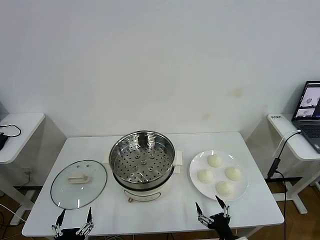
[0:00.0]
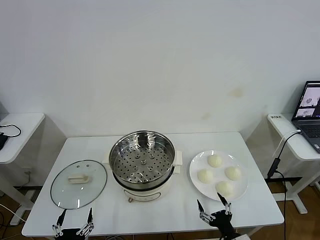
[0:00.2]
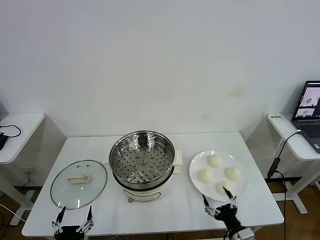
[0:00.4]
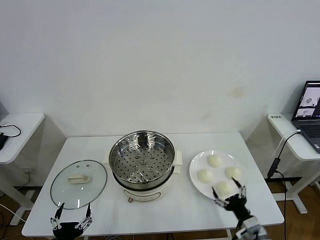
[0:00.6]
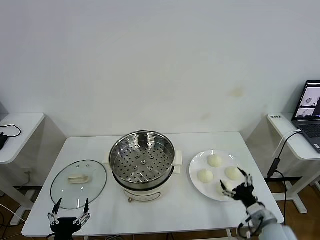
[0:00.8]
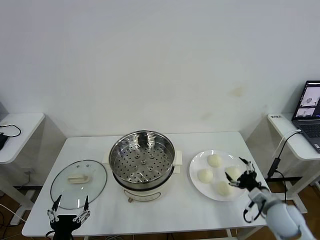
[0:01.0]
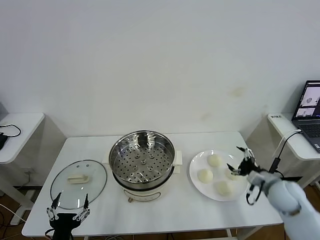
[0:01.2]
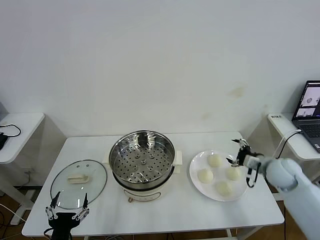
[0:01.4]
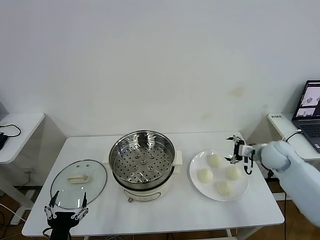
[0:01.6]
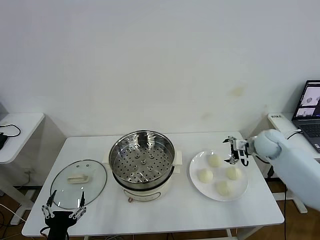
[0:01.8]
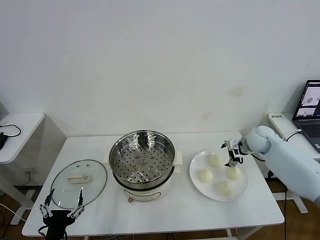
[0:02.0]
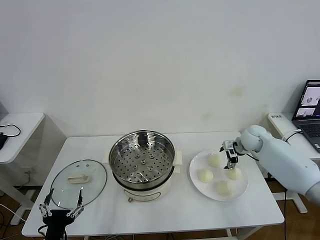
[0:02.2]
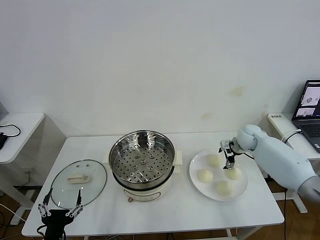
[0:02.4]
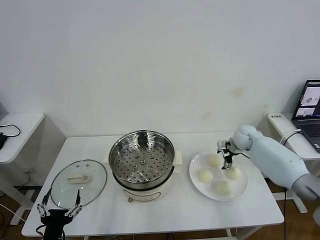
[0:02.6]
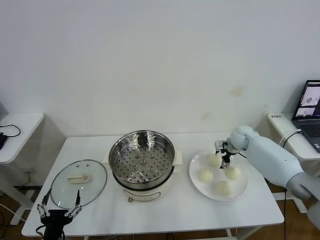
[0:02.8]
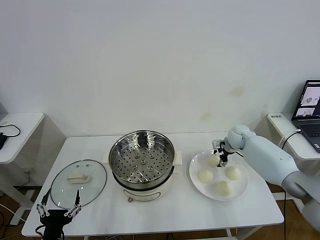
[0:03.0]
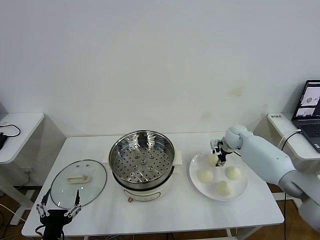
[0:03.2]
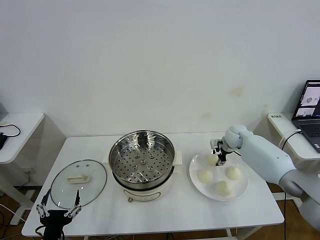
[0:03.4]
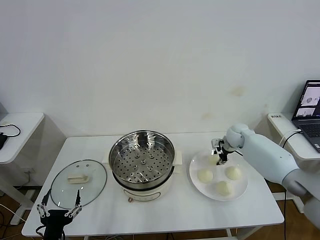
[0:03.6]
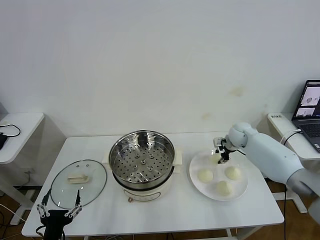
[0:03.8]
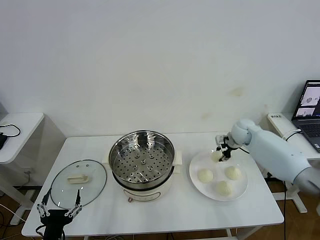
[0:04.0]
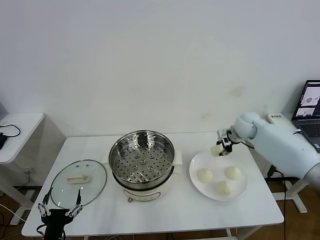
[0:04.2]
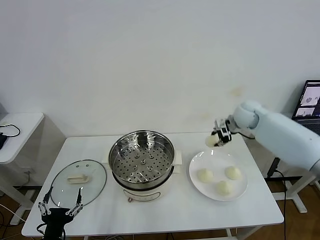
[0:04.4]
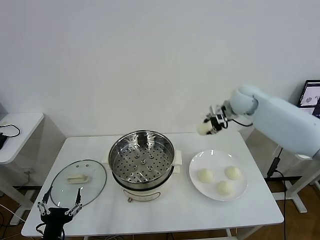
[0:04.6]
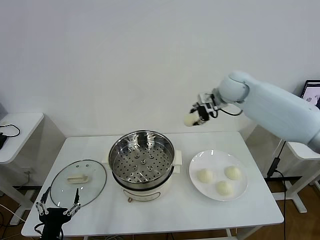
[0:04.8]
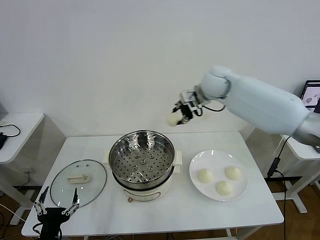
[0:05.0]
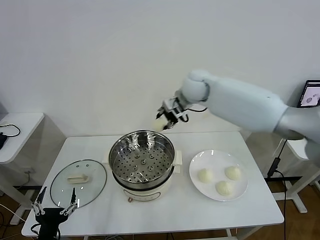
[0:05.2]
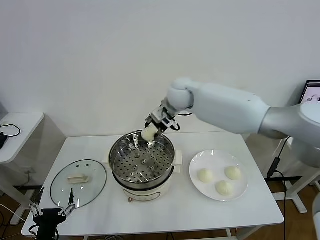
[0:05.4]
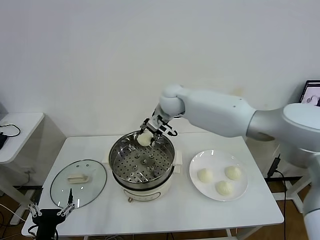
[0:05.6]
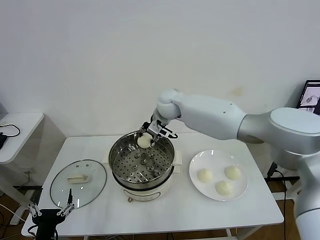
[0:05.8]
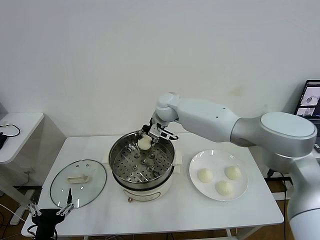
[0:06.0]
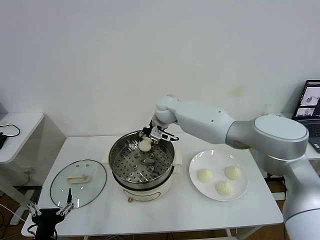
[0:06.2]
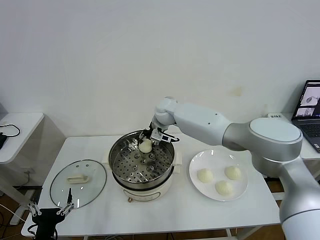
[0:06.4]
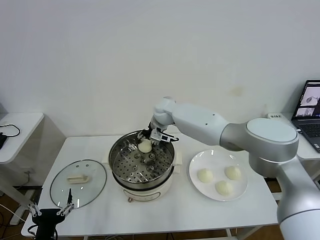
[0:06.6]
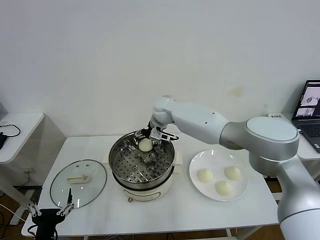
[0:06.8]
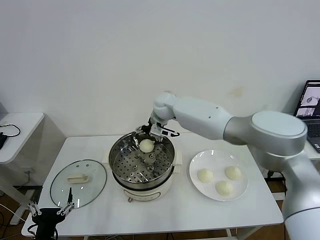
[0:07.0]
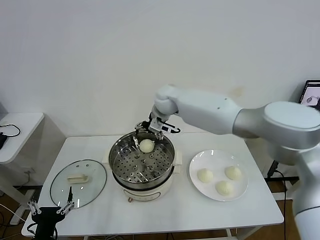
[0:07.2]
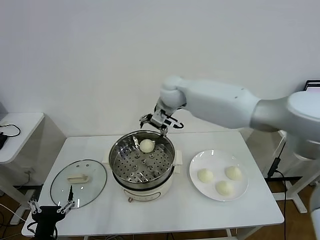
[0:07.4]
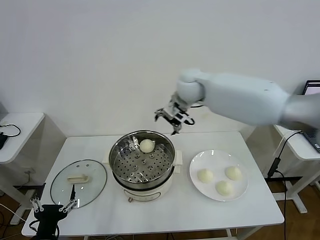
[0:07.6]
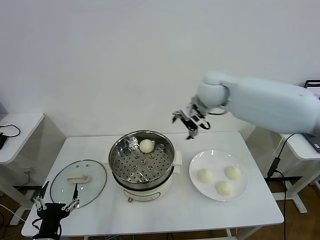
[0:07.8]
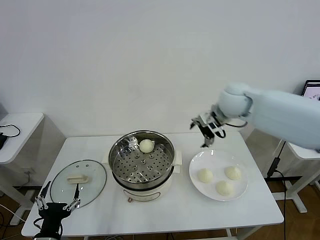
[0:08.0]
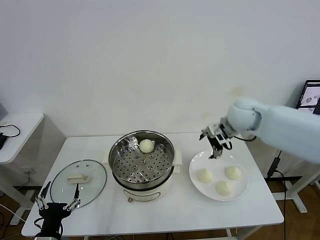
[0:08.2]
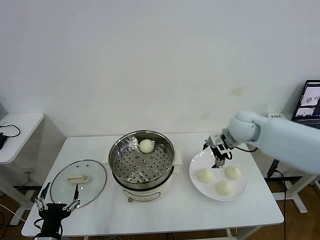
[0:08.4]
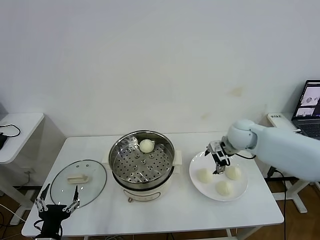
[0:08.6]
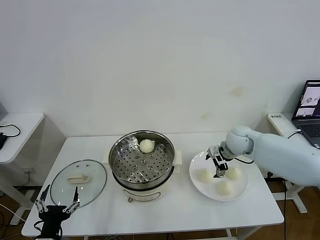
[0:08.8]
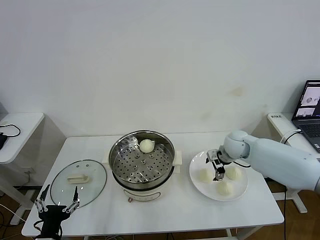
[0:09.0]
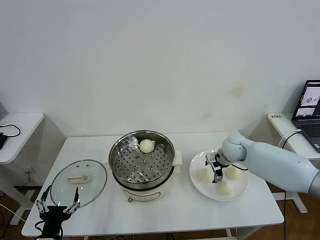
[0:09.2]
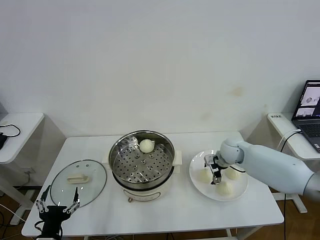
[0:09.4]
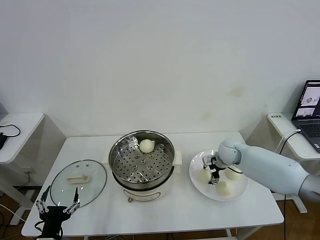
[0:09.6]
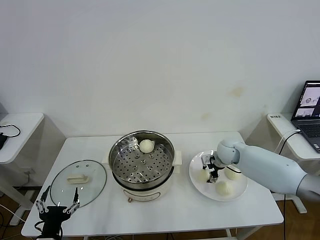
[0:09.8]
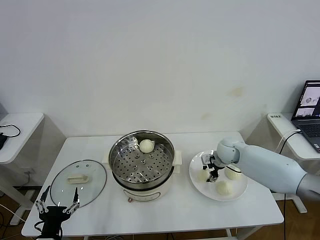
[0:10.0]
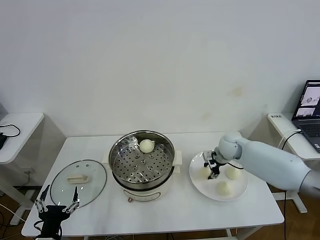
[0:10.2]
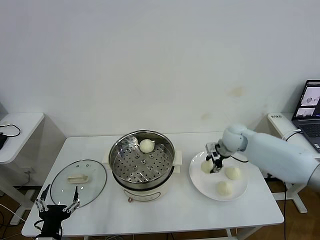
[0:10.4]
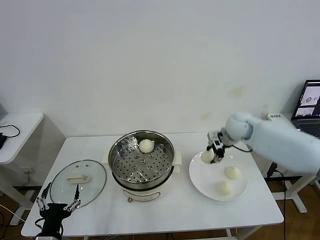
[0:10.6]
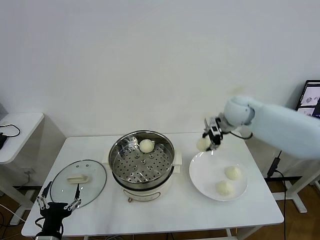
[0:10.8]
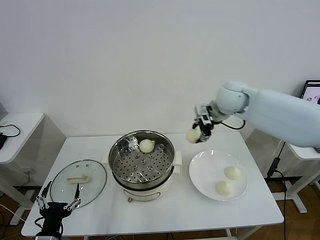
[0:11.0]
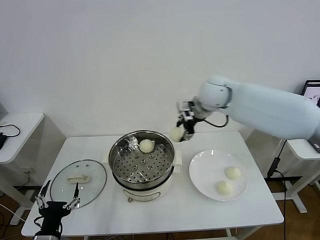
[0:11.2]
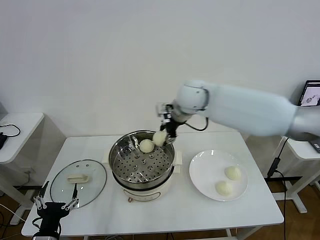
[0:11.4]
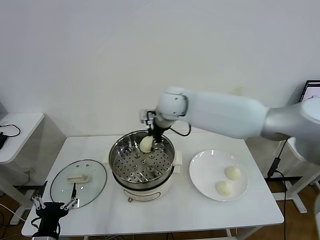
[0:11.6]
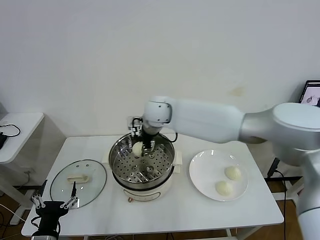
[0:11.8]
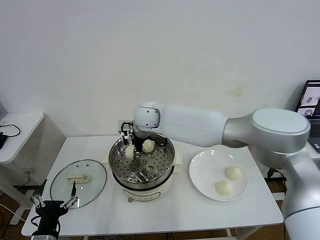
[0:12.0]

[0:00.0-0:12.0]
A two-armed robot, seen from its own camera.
Task of the whole recording: take steamed baozi put them in steamer then cover it.
Step, 0:00.0 to 0:03.6: Grasp the baozi in the plate with right gripper.
Step, 0:03.8 to 0:07.0: Place the baozi on the steamer with right gripper.
Step, 0:07.2 to 0:10.0: Grasp the baozi in the plate with right gripper.
0:01.6 to 0:03.0: The right gripper is displaced forward, to the left and downward by some 15 cm, and closes.
0:03.0 to 0:04.4: The right gripper shifts some 20 cm upward, and closes its fingers.
0:04.4 to 0:06.0: The right gripper goes about 25 cm to the left.
0:06.0 to 0:07.6: The right gripper travels to the right and upward by some 15 cm, and opens.
0:07.6 to 0:09.0: The right gripper heads downward and to the right, covering roughly 25 cm.
0:09.0 to 0:10.4: The right gripper moves upward, approximately 5 cm, and closes its fingers.
0:10.4 to 0:12.0: The right gripper shifts some 35 cm to the left.

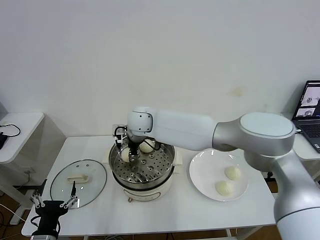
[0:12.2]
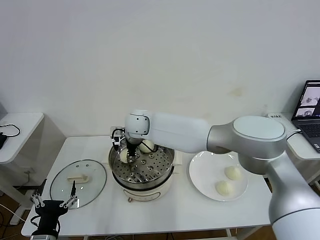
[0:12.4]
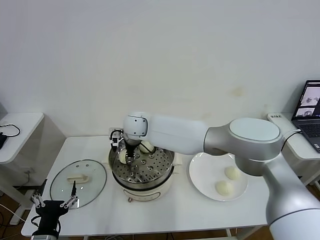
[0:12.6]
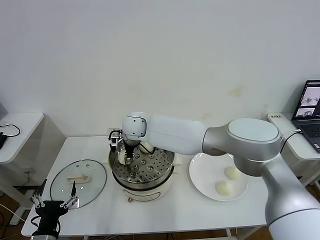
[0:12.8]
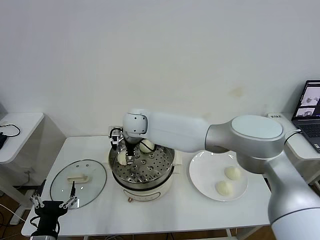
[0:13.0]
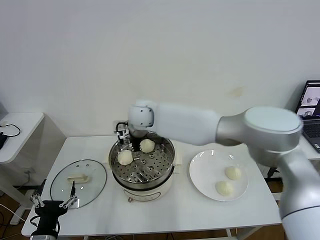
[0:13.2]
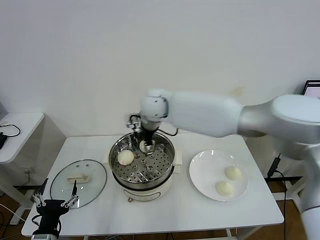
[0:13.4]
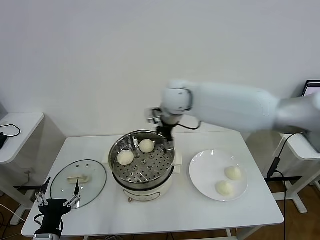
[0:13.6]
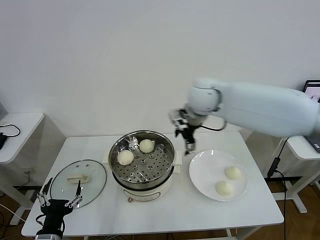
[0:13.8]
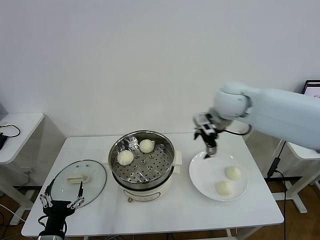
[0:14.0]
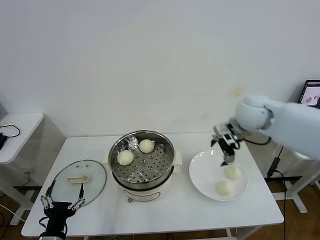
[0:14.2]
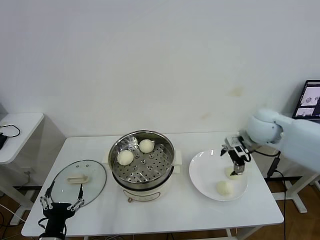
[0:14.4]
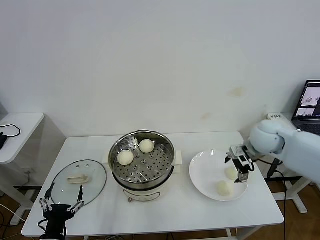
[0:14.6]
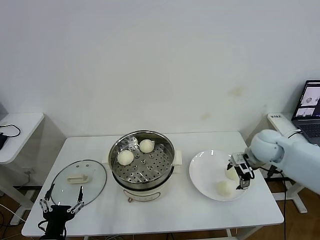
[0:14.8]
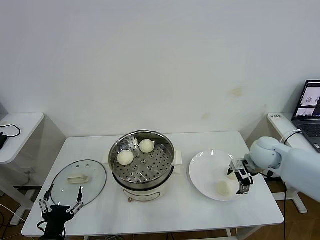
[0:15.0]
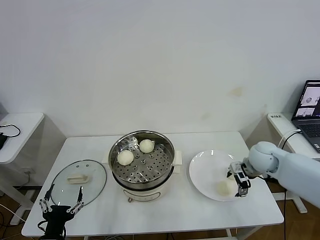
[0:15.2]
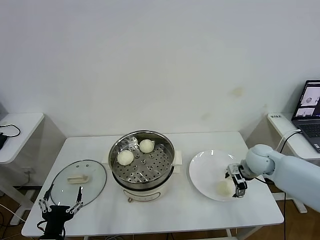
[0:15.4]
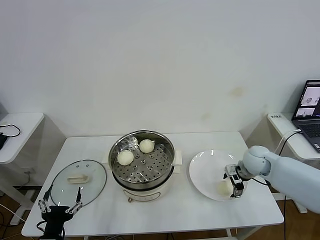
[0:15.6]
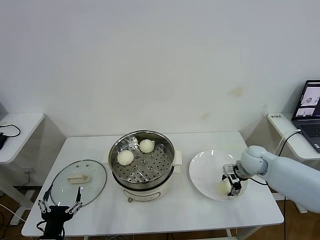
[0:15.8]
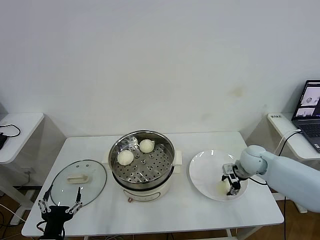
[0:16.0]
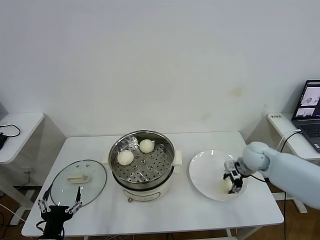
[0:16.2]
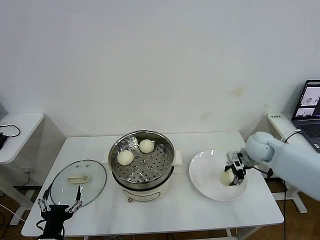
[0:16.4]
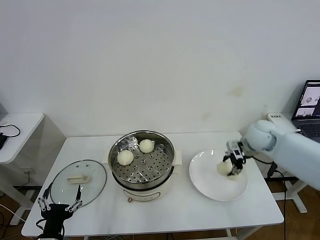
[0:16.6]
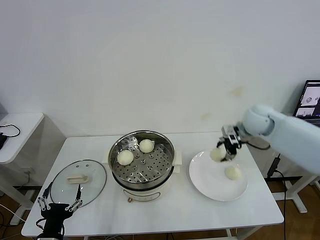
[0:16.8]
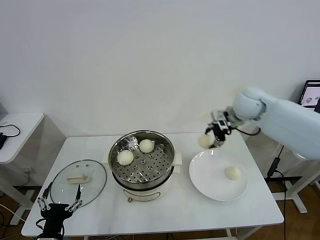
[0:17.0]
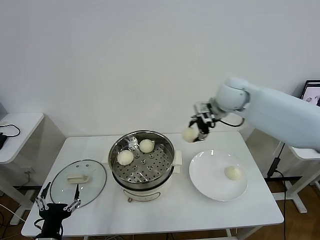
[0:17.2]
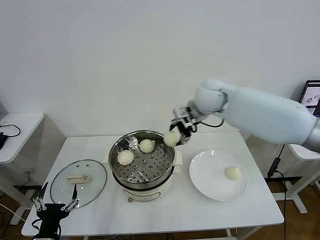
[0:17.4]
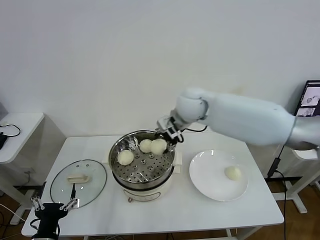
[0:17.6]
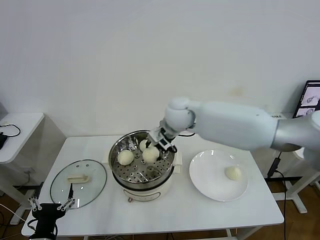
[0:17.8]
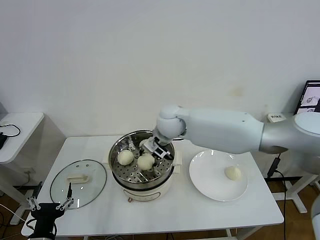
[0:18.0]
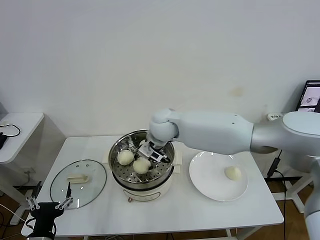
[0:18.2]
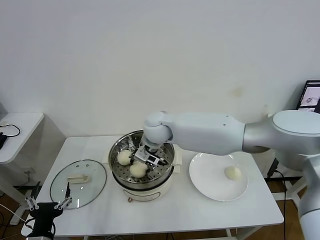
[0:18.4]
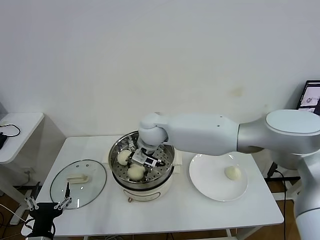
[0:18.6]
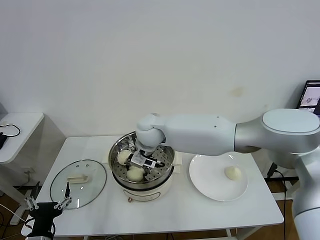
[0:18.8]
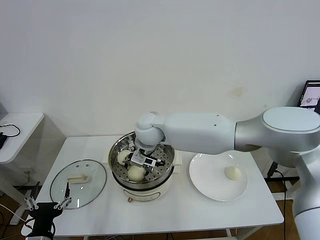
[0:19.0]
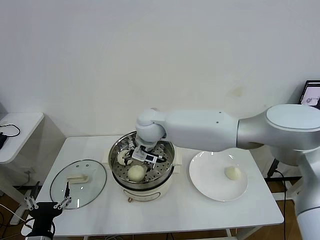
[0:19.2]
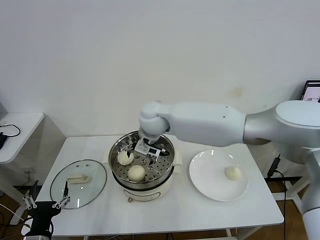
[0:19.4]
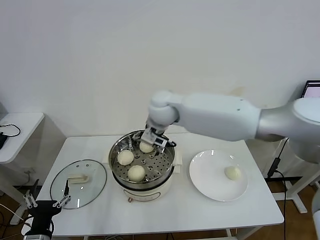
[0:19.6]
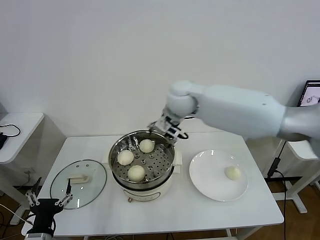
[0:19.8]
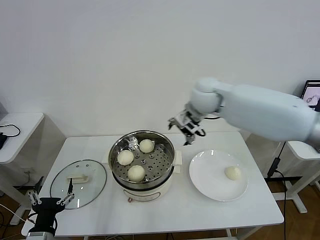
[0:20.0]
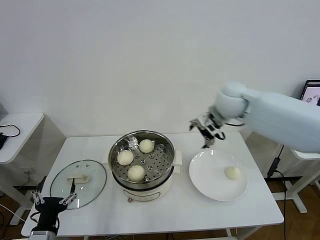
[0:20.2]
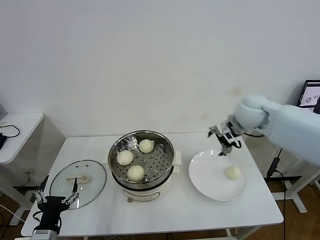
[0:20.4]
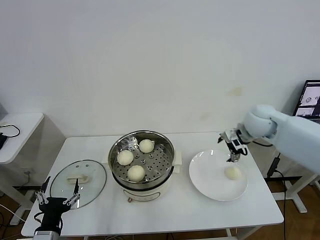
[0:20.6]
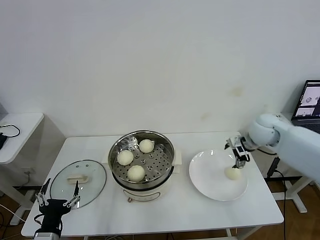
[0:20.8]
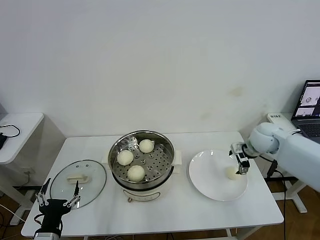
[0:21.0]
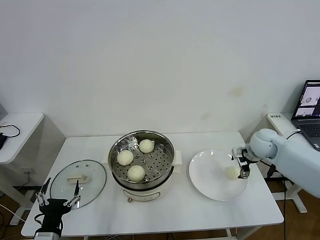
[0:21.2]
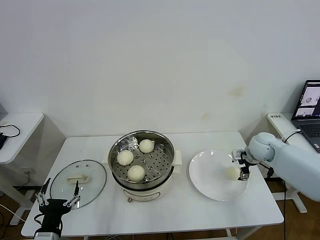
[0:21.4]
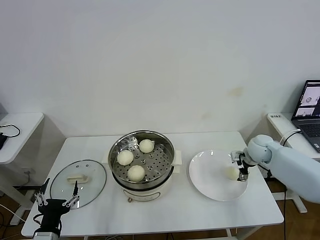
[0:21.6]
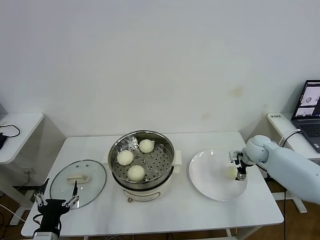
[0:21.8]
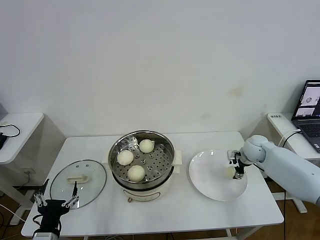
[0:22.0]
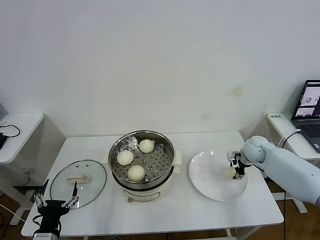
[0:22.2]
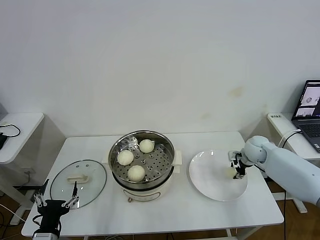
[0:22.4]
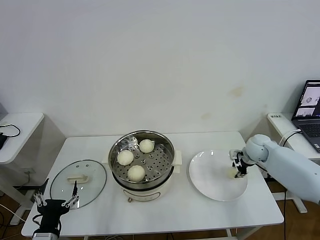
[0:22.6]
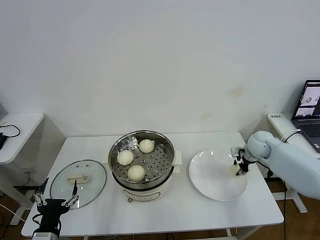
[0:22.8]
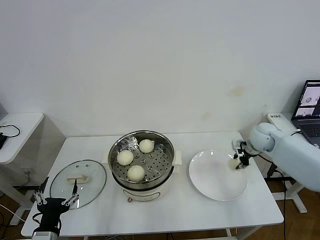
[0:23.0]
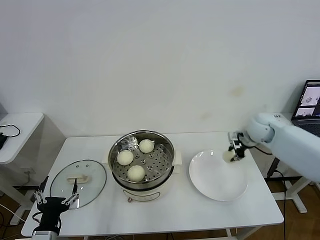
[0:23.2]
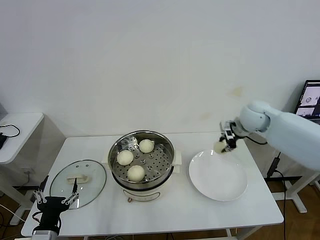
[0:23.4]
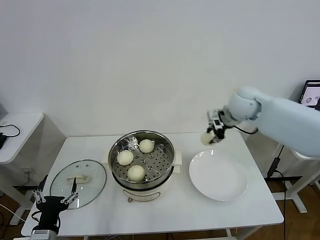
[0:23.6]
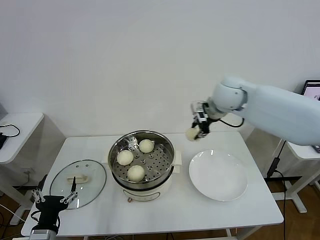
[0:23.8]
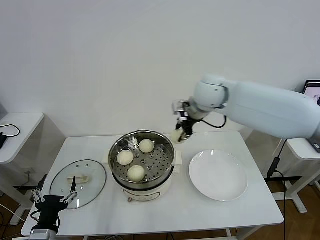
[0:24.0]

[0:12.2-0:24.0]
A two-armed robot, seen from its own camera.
Task of the whole recording: take steamed baozi put them in steamer then cover it.
Step, 0:13.2 to 0:16.0: Grasp the baozi in the plate with right gripper.
Step, 0:16.2 to 0:19.2: Place the baozi on the steamer with right gripper.
Step, 0:19.6 to 0:22.6: Grasp the baozi in the plate with right gripper.
0:12.2 to 0:13.6: The right gripper travels to the right and upward by roughly 20 cm, and opens up.
0:13.6 to 0:15.2: The right gripper heads to the right and downward, covering approximately 35 cm.
0:15.2 to 0:16.6: The right gripper goes roughly 10 cm upward and forward, and closes up.
0:16.6 to 0:18.2: The right gripper heads to the left, covering roughly 35 cm.
0:18.2 to 0:19.6: The right gripper shifts roughly 5 cm upward, and opens up.
0:19.6 to 0:21.0: The right gripper shifts about 35 cm to the right and downward.
0:21.0 to 0:22.6: The right gripper is displaced downward by approximately 5 cm, and closes its fingers.
0:22.6 to 0:24.0: The right gripper shifts approximately 35 cm to the left and upward.
